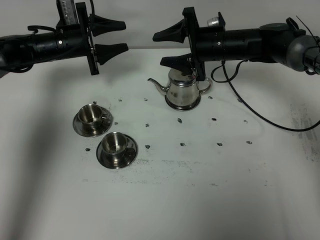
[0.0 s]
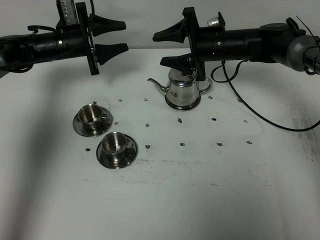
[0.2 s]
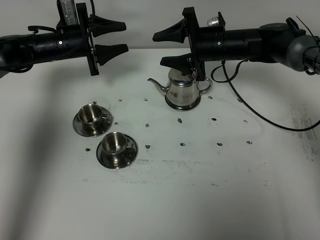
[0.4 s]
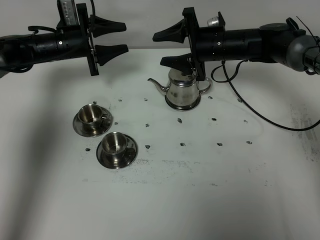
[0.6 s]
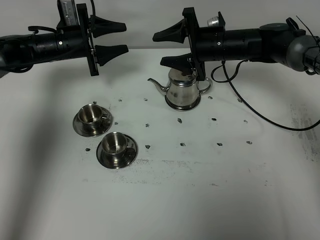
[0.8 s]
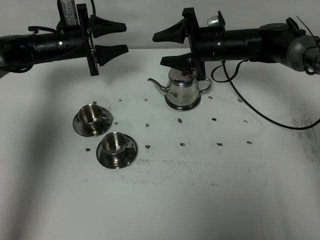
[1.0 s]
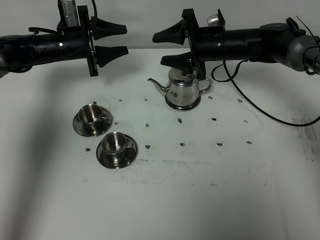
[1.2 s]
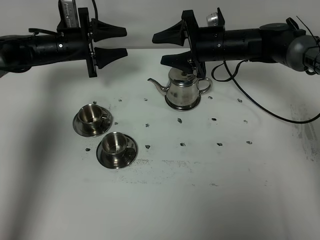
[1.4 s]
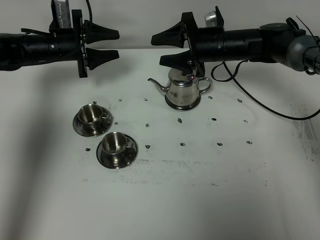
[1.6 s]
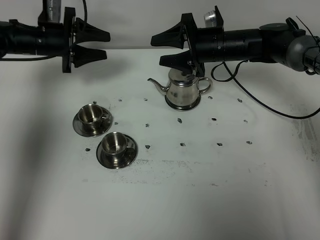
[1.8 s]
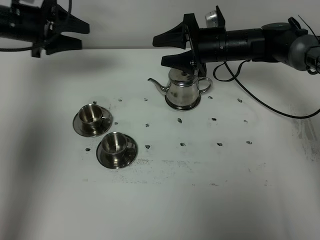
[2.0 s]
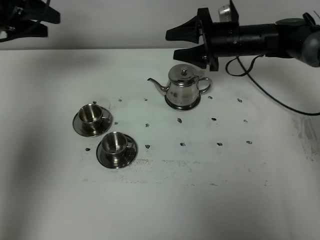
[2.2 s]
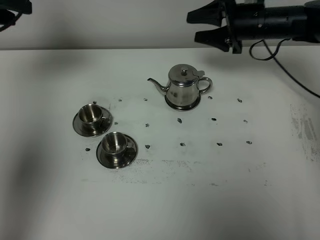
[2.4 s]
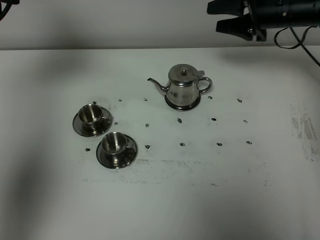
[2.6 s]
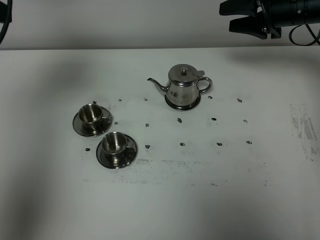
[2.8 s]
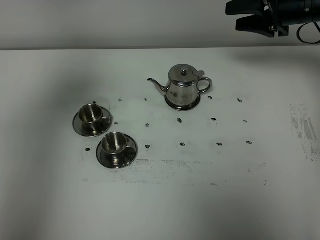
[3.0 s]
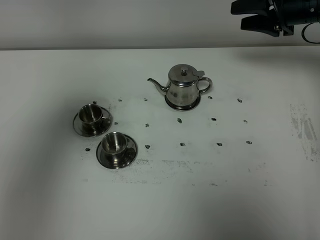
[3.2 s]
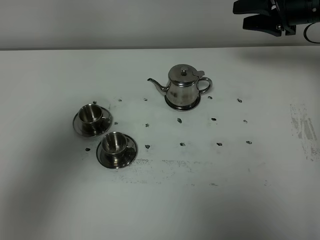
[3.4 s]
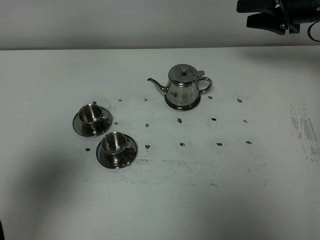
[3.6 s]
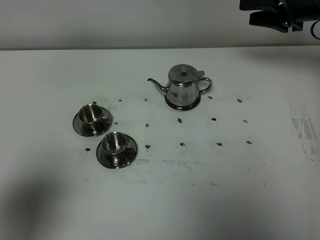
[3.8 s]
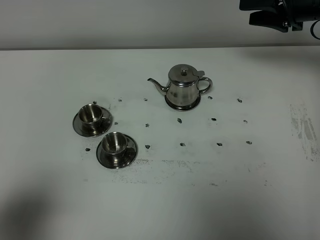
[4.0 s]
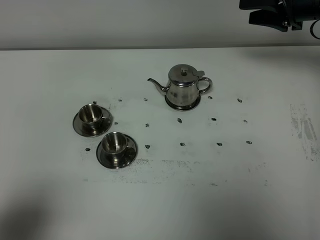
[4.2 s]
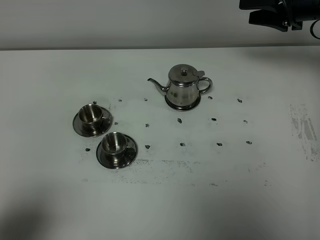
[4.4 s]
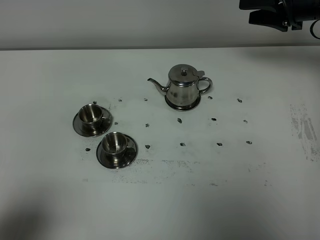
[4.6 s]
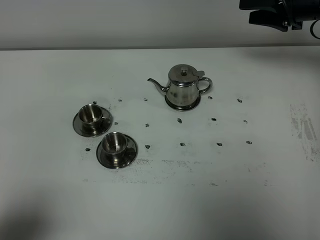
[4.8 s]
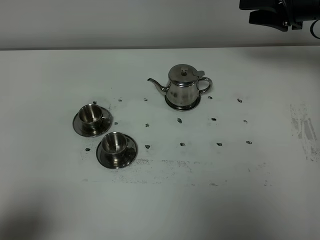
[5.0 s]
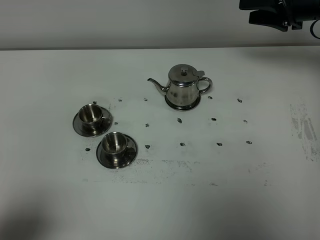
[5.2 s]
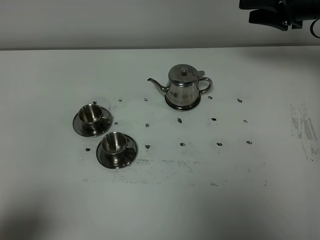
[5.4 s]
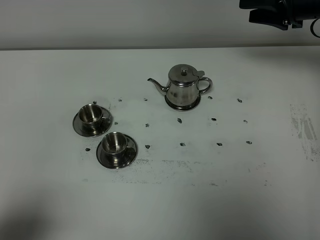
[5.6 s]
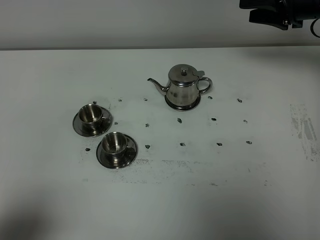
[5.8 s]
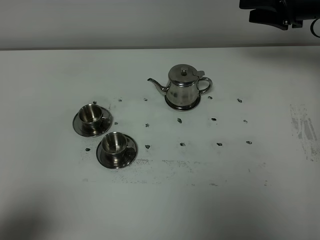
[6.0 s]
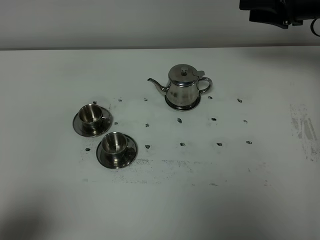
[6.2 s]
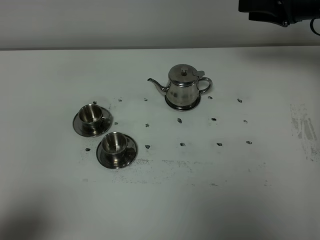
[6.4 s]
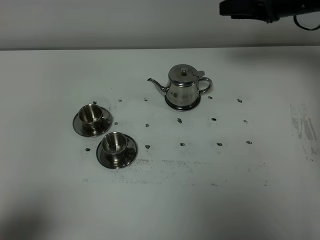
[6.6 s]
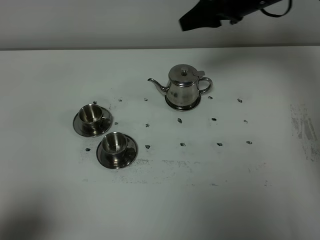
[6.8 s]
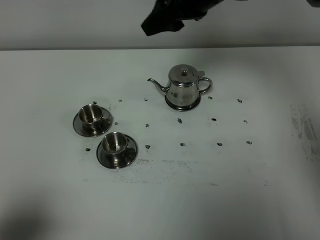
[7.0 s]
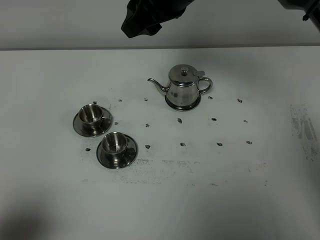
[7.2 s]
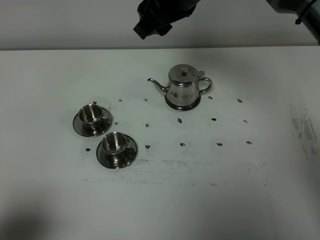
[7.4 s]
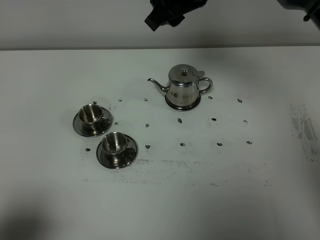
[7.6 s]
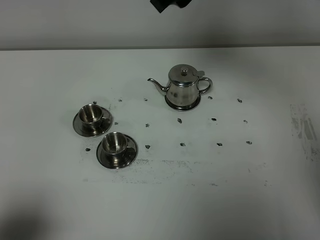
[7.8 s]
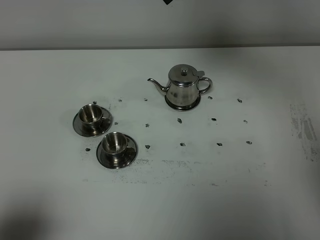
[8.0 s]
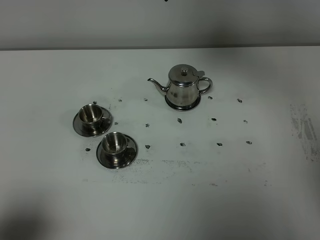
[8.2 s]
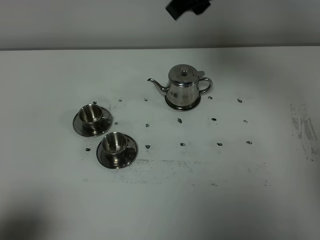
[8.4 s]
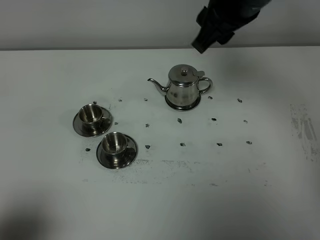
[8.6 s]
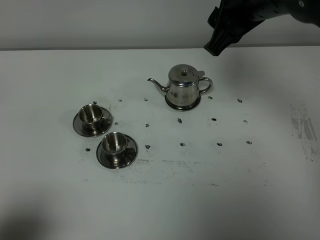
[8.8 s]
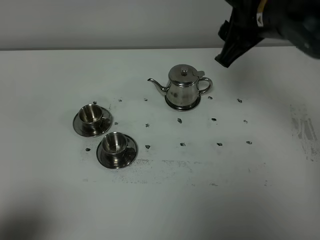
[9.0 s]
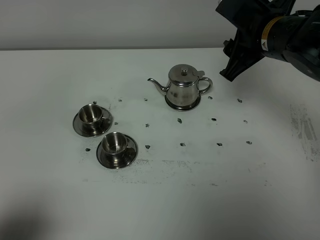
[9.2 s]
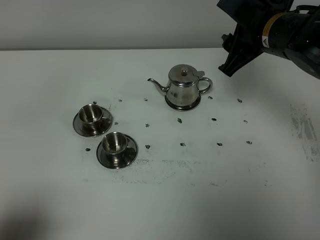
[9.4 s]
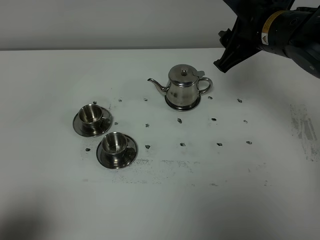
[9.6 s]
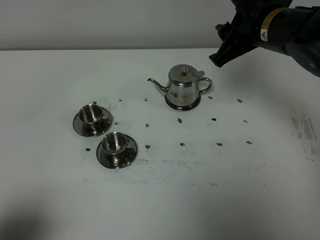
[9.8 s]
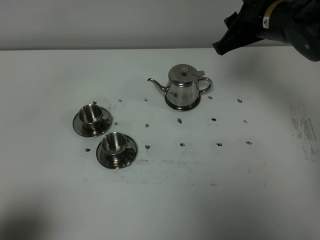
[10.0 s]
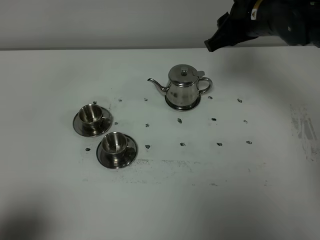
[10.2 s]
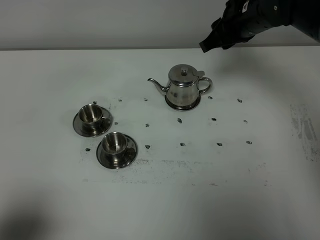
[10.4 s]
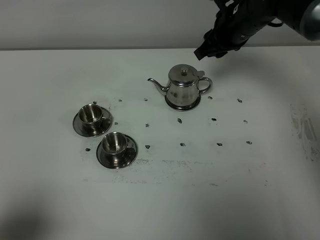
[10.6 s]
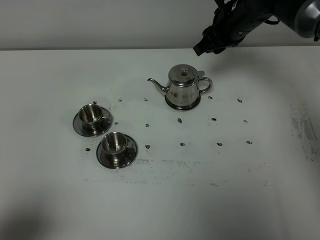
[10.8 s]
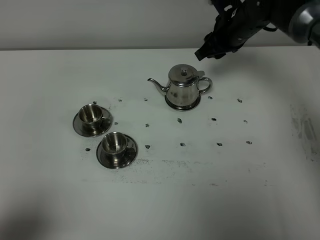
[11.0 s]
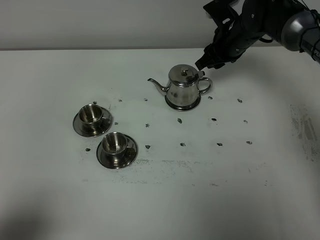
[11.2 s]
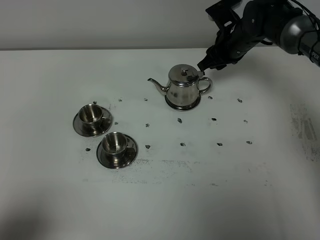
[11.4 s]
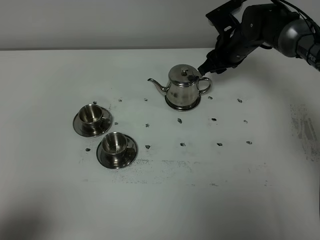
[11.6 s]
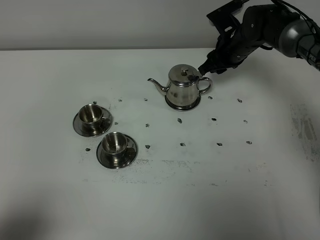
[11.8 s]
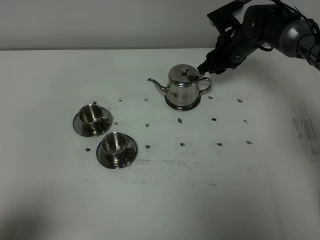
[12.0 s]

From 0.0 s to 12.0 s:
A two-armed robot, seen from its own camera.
Task of the whole recording: grasp the stainless steel teapot and pour the tea into the two stainless steel teacups one by one, put the stainless steel teapot back in its original place.
From 0.0 s to 1.6 s: The grippers stay close to where they were, moving slightly.
From 1.6 s to 3.0 s: The left gripper goes roughly 40 cm upward and backward. Meanwhile the right gripper travels to the right and upward by approximately 15 cm.
From 3.0 s to 4.4 s: The left gripper travels backward and downward by some 25 cm.
From 4.4 s to 6.0 s: Both grippers stay about where they are.
From 6.0 s to 7.6 s: The right gripper heads to the left and upward, covering roughly 25 cm.
From 7.6 s to 9.0 s: The right gripper travels to the right and downward by approximately 10 cm.
From 9.0 s to 10.4 s: The right gripper shifts approximately 10 cm forward and downward.
From 10.4 s to 12.0 s: The right gripper is displaced downward and forward by approximately 15 cm.

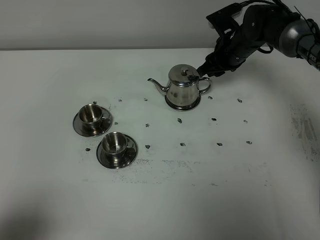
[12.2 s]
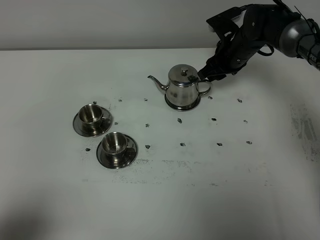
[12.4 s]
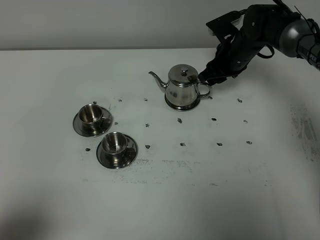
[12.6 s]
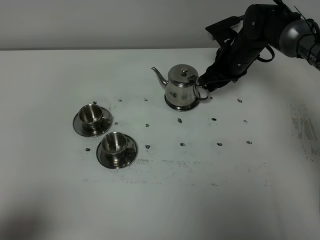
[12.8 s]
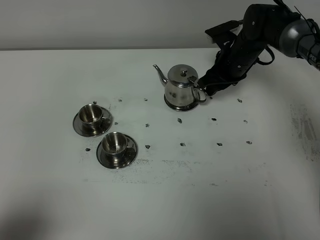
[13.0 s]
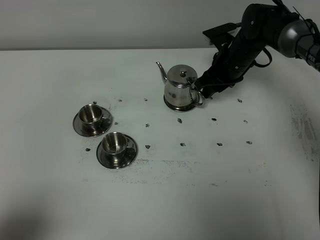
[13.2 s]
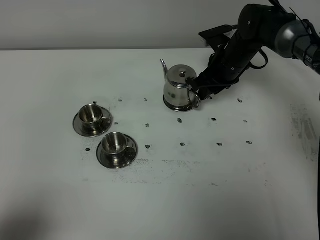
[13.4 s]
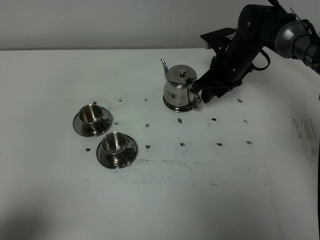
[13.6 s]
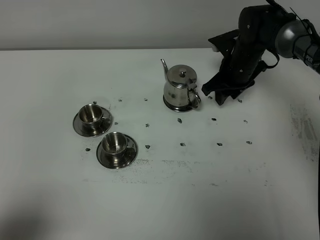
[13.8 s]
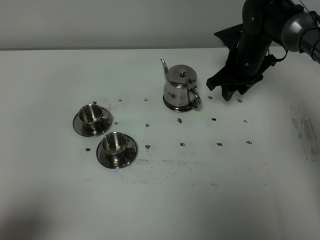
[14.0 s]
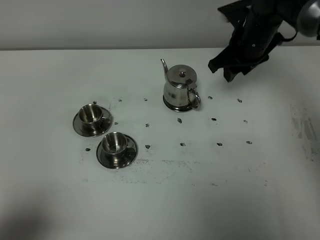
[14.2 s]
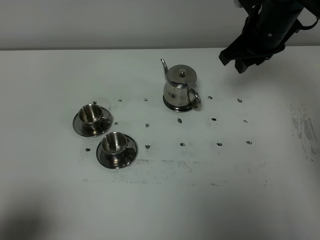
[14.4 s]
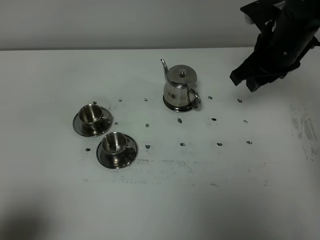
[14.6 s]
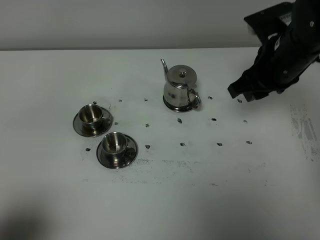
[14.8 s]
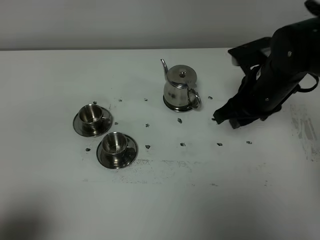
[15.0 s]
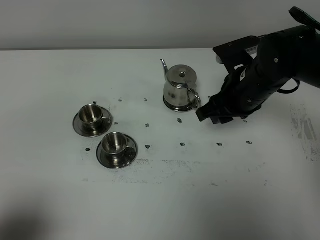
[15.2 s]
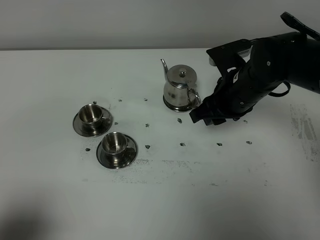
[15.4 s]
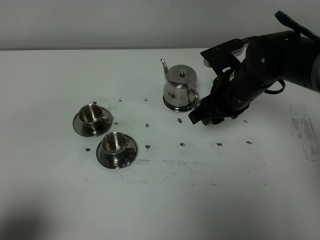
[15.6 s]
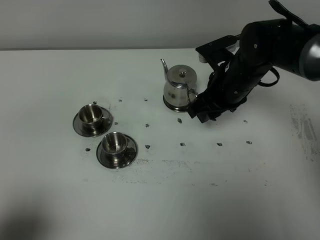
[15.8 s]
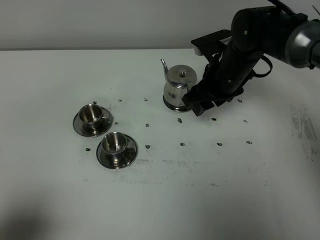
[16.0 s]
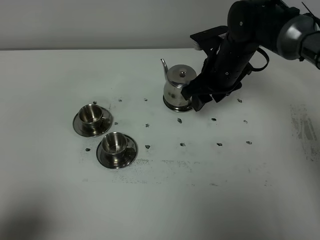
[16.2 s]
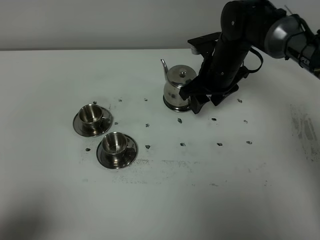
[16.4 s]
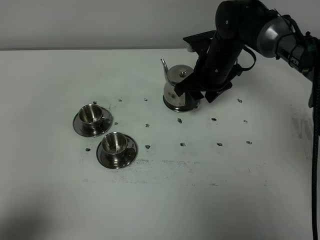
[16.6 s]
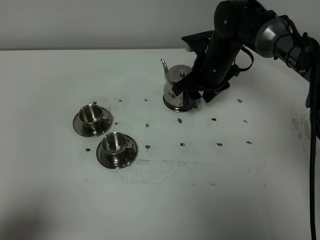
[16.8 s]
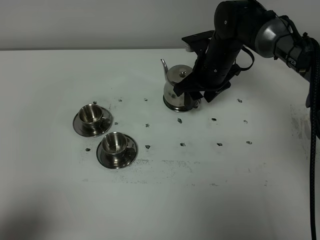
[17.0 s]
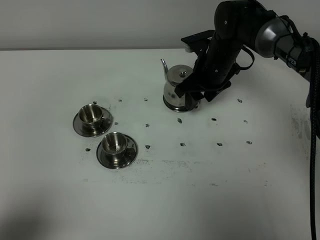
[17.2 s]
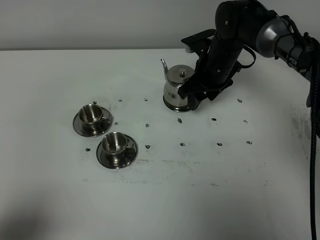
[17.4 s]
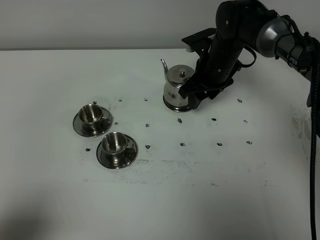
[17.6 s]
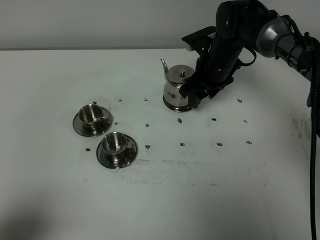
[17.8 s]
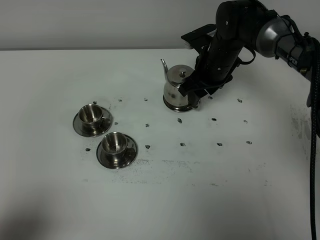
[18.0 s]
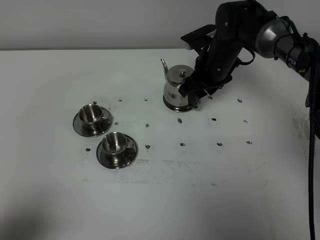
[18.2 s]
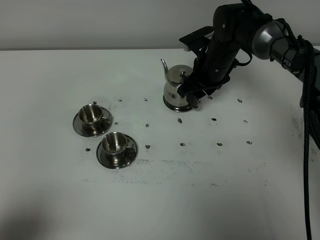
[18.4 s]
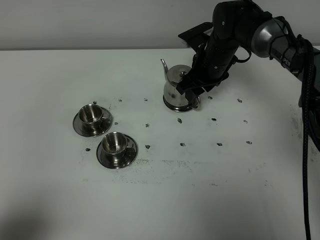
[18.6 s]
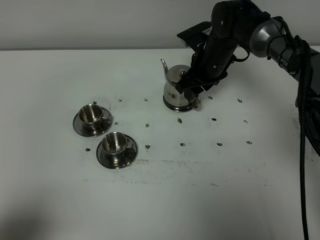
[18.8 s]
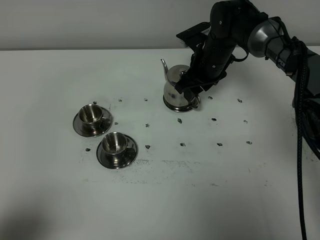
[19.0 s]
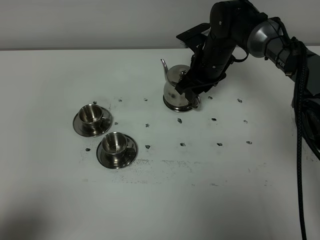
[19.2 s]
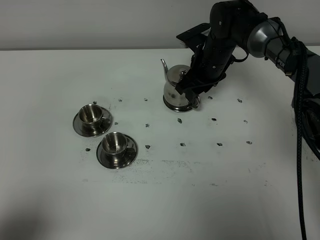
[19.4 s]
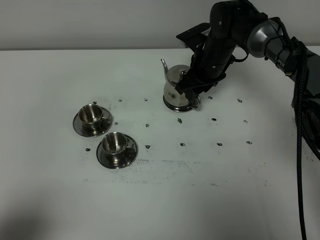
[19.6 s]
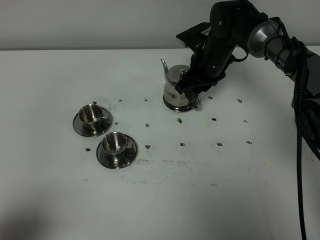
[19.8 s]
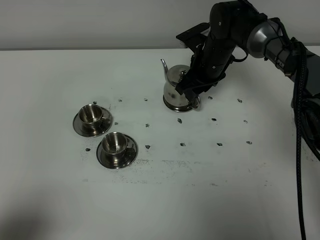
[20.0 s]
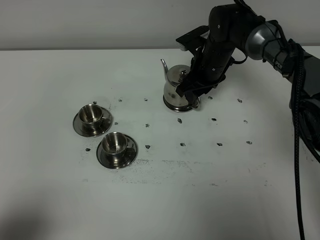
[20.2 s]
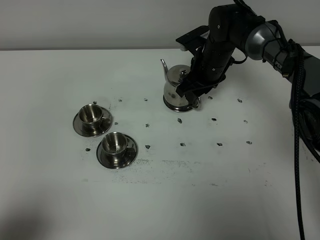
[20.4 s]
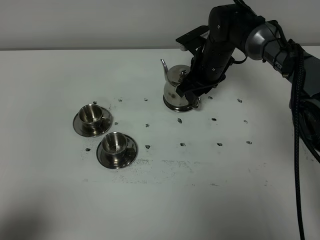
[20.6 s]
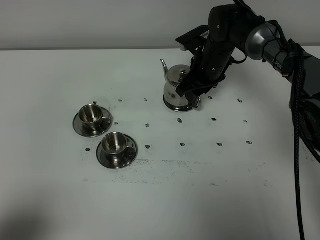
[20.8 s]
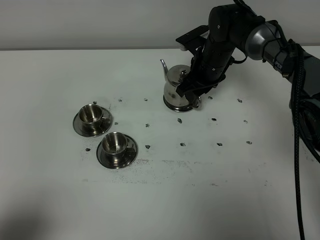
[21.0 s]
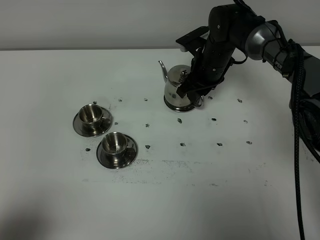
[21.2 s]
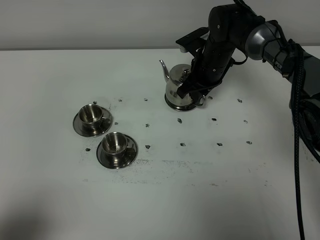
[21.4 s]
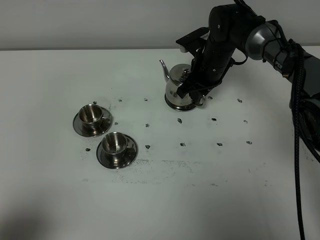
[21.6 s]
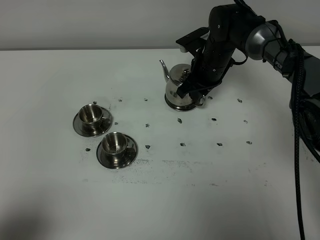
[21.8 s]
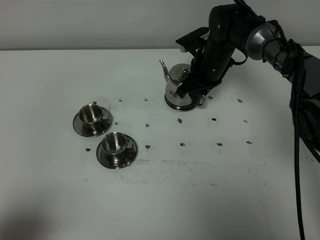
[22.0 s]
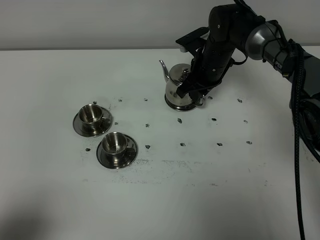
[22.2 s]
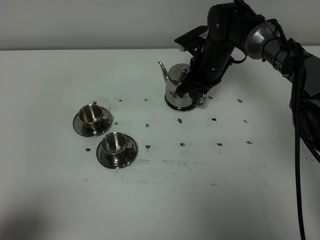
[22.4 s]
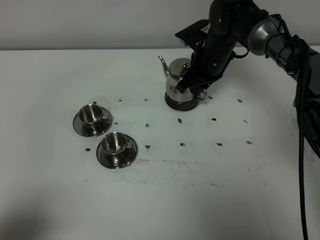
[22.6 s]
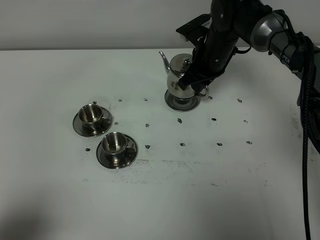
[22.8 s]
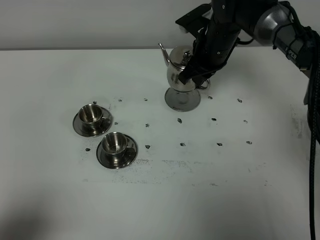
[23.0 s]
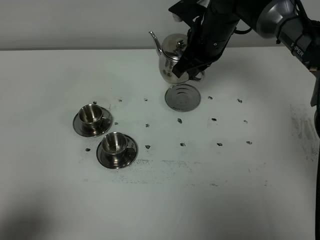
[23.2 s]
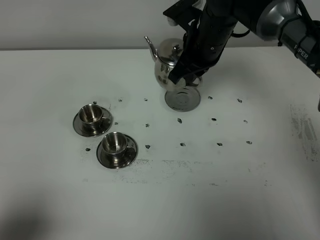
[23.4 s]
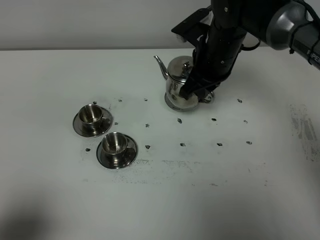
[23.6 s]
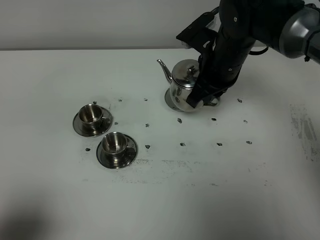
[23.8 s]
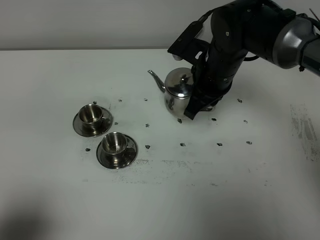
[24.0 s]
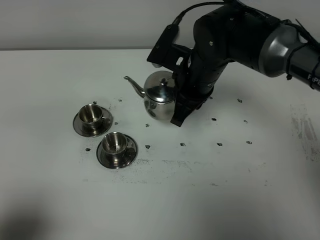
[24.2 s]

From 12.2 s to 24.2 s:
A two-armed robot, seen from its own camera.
Task of the whole recording: grasp the stainless steel teapot and pour the tea into the two stainless steel teacups one by one, put the stainless steel teapot back in its original place.
Step, from 12.2 s to 22.4 s: Pick up the teapot with the right gripper.
From 13.8 s to 15.2 s: The right gripper is displaced backward and upward by roughly 15 cm.
From 15.2 s to 16.6 s: The right gripper travels forward by about 10 cm.
From 16.6 s to 19.8 s: The grippers move only a little.
From 19.8 s to 21.2 s: The right gripper closes its fingers.
From 21.2 s to 22.6 s: The right gripper closes its fingers.
From 22.6 s to 24.2 s: The right gripper is displaced backward and upward by roughly 10 cm.
